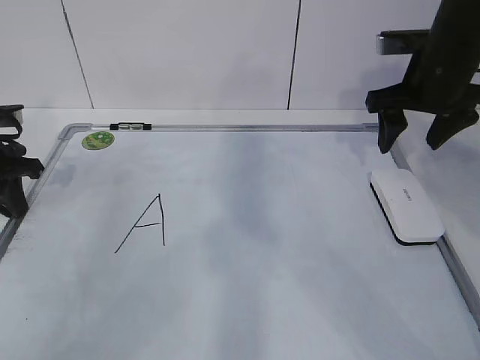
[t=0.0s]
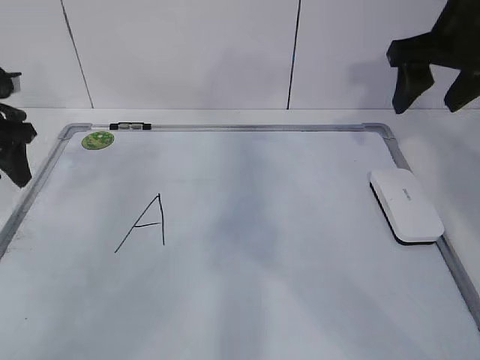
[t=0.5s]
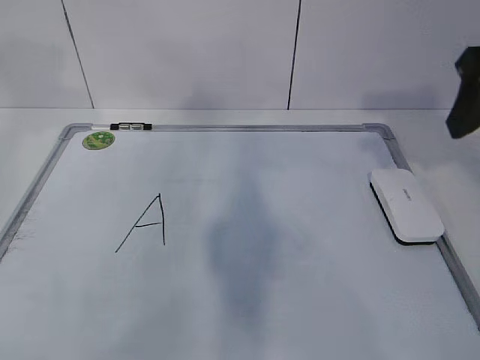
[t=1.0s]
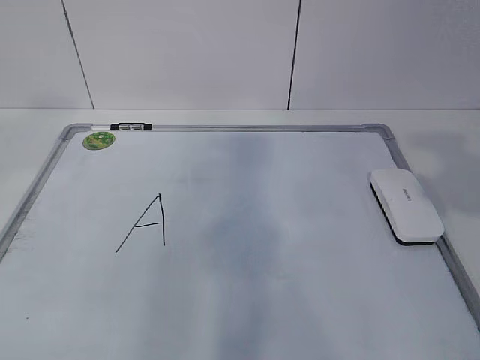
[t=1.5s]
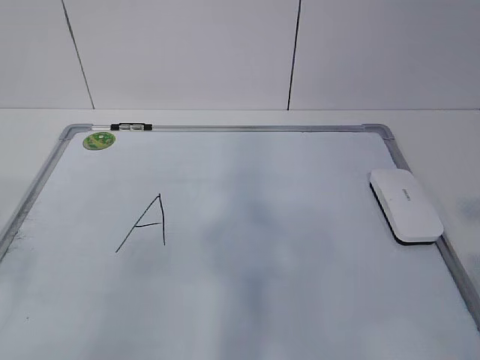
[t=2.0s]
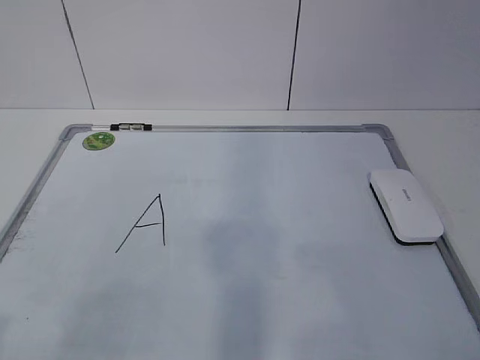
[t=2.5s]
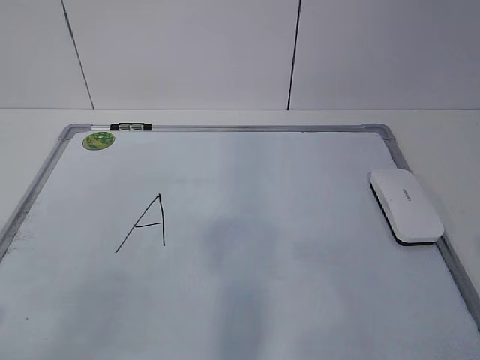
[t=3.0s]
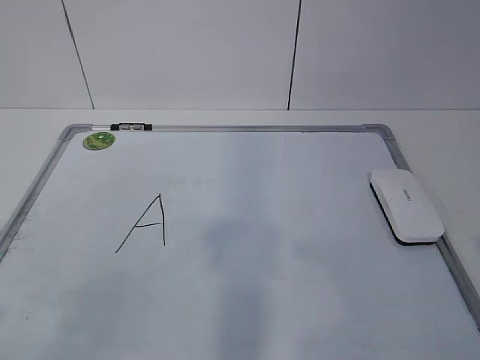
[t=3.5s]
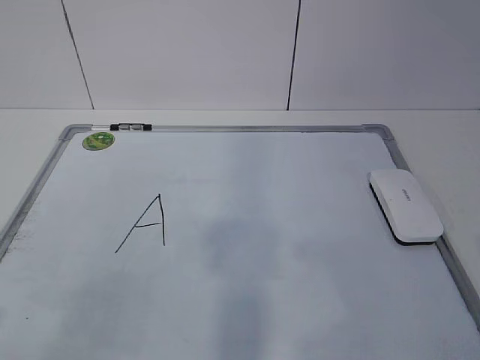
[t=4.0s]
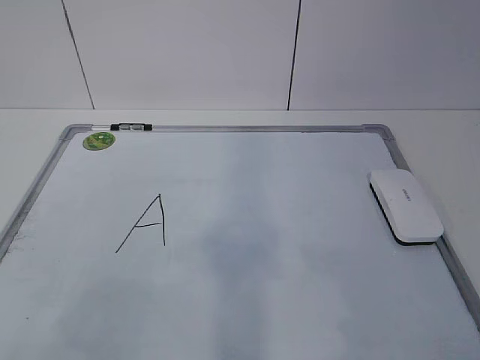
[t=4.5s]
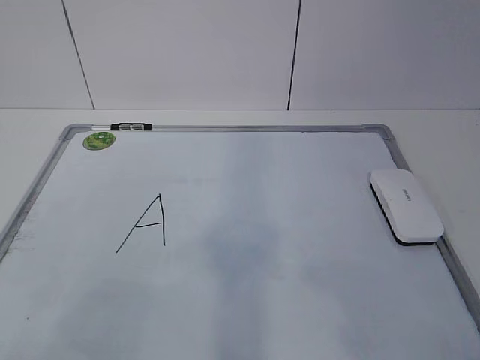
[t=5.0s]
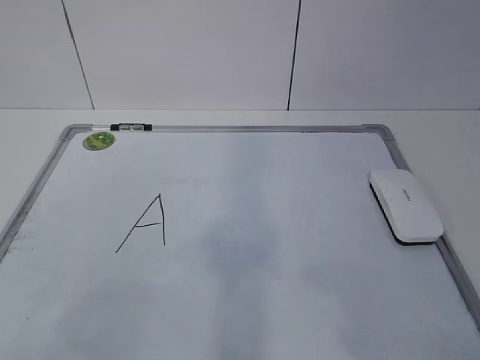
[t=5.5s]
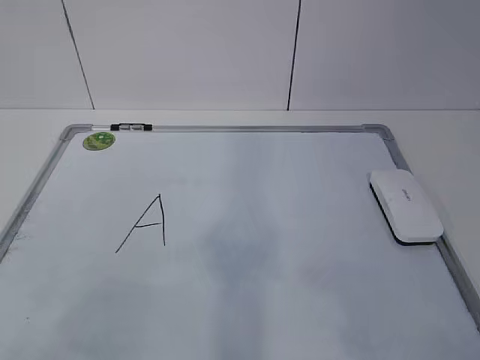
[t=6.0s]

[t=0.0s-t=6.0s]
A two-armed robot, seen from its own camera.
Task of the whole recording: pick up the eraser on the blackboard and erase the letter "a".
t=0.0s to t=2.0s: The left gripper heads backward and upward, covering approximately 35 cm, and opens. Meanwhile the right gripper is displaced backward by about 35 cm.
